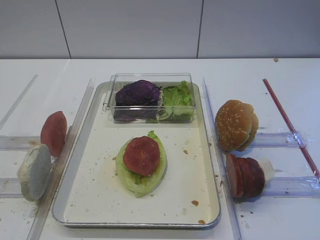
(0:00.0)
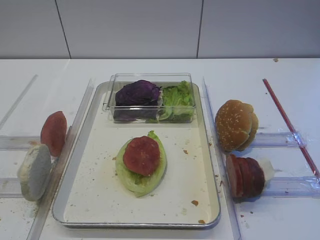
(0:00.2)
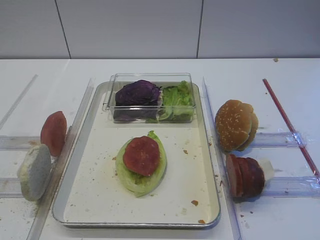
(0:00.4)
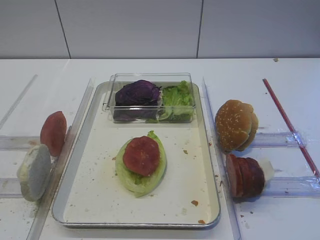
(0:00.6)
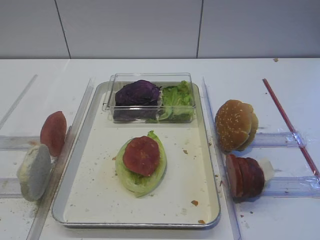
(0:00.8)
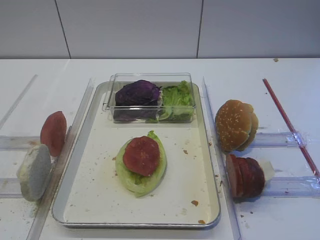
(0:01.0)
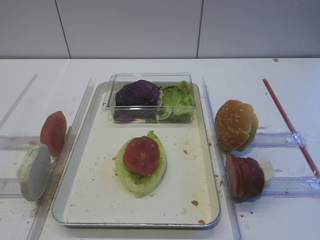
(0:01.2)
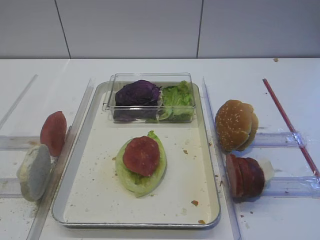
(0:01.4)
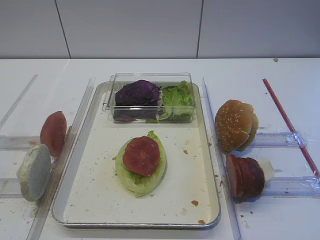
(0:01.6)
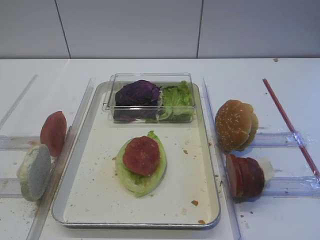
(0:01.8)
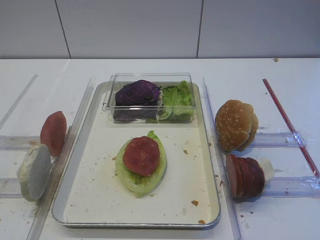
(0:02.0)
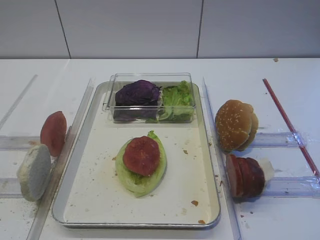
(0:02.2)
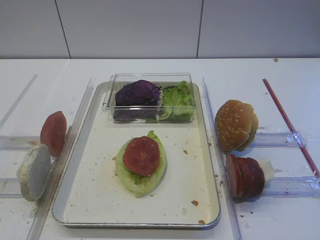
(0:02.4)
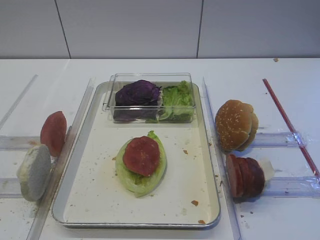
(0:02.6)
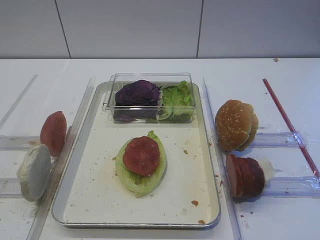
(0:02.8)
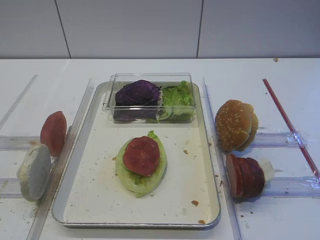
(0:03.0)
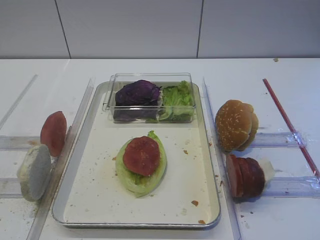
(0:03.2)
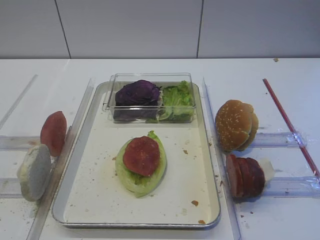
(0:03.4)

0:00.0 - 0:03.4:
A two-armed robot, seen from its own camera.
0:00.0 - 0:03.4: Neither gripper changes place.

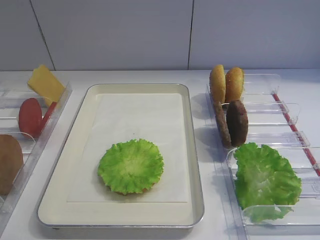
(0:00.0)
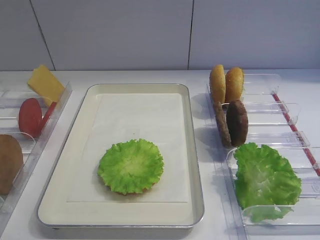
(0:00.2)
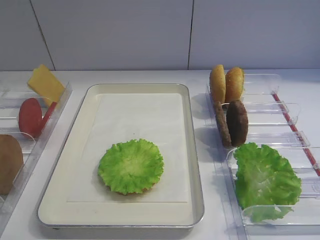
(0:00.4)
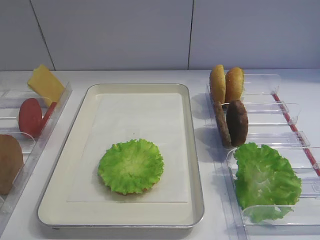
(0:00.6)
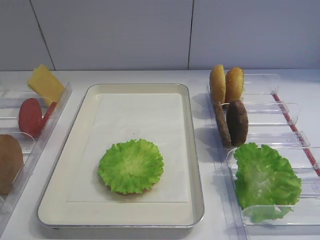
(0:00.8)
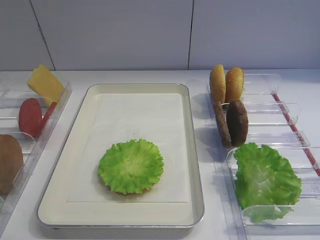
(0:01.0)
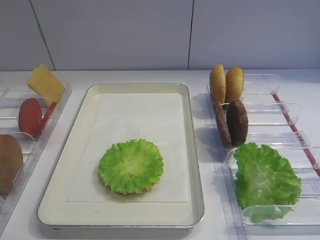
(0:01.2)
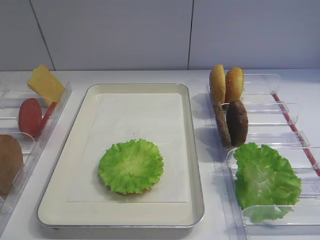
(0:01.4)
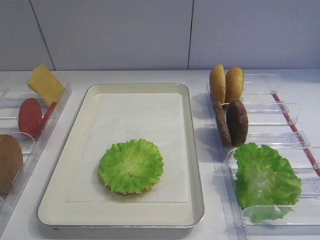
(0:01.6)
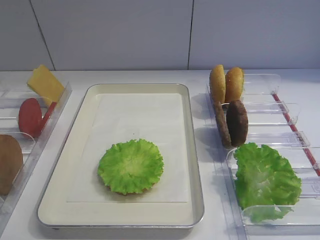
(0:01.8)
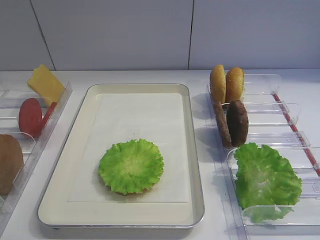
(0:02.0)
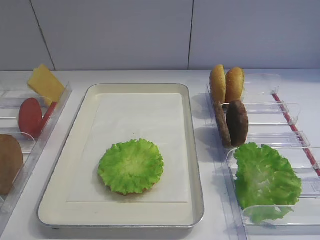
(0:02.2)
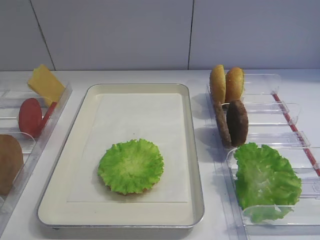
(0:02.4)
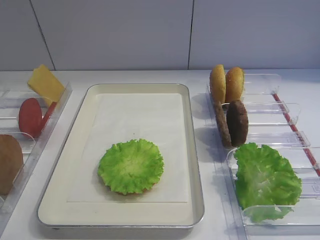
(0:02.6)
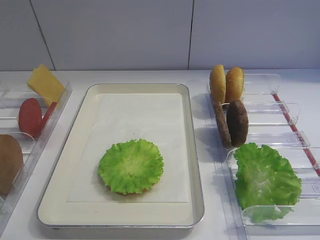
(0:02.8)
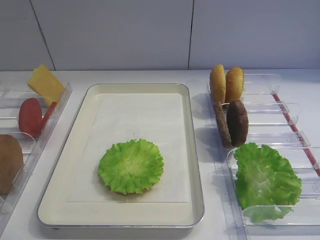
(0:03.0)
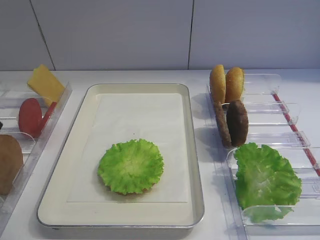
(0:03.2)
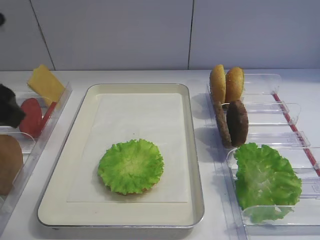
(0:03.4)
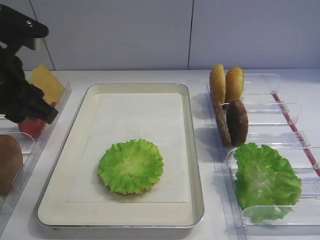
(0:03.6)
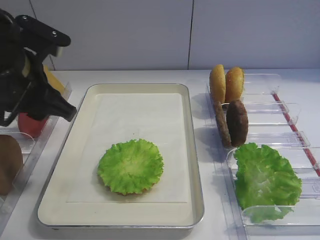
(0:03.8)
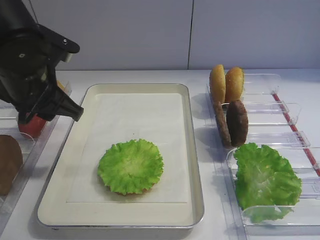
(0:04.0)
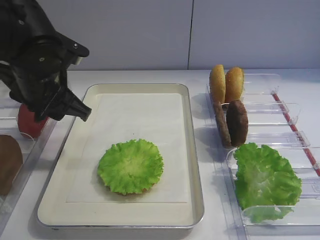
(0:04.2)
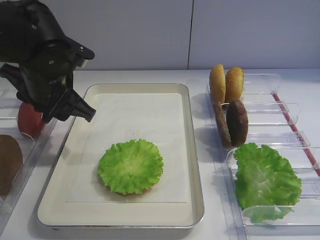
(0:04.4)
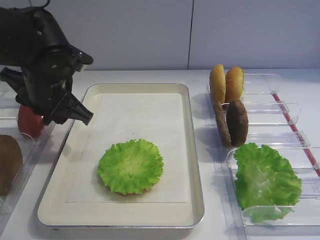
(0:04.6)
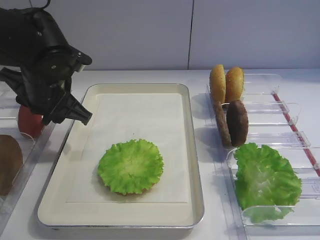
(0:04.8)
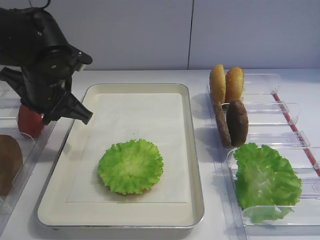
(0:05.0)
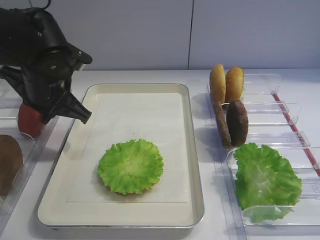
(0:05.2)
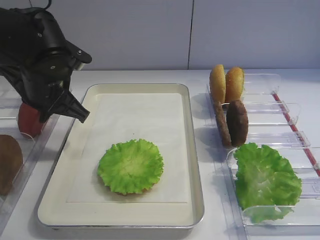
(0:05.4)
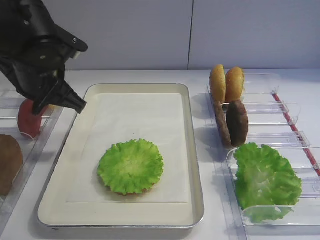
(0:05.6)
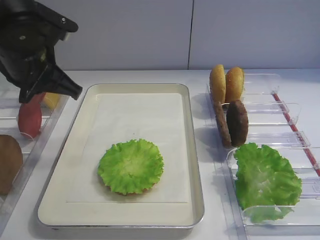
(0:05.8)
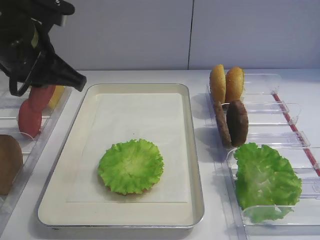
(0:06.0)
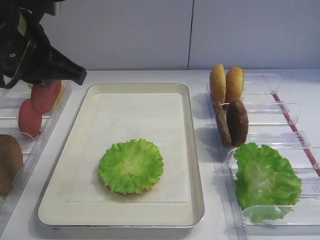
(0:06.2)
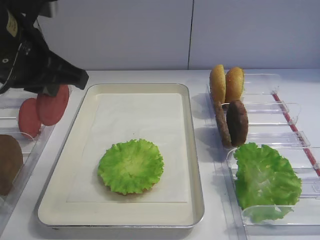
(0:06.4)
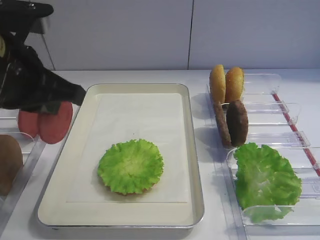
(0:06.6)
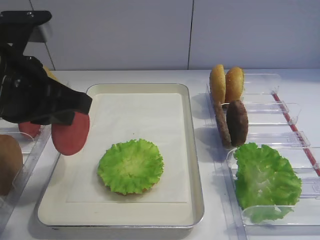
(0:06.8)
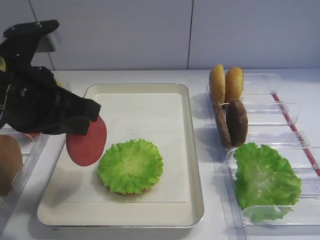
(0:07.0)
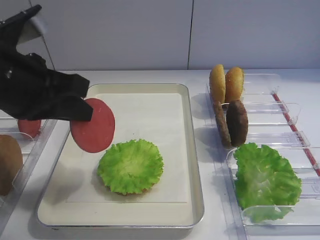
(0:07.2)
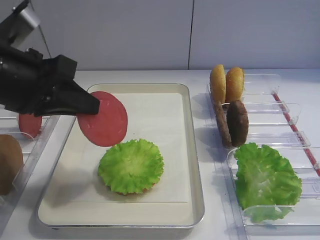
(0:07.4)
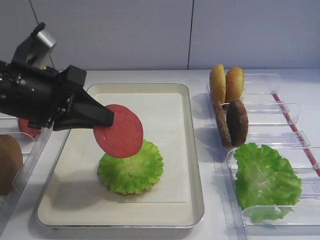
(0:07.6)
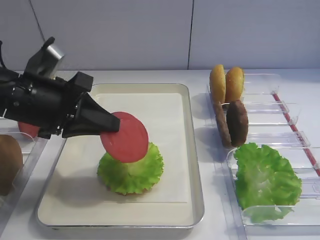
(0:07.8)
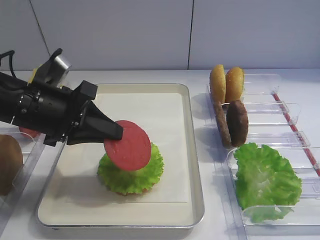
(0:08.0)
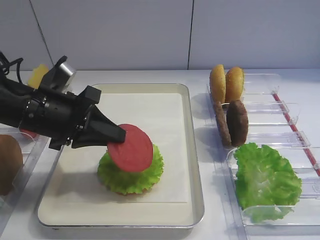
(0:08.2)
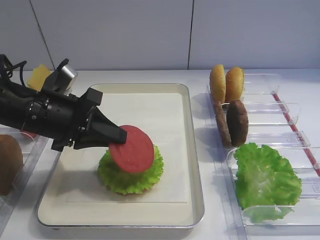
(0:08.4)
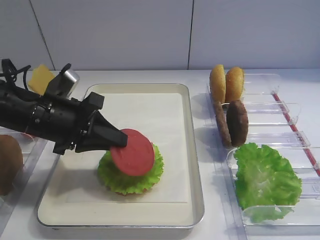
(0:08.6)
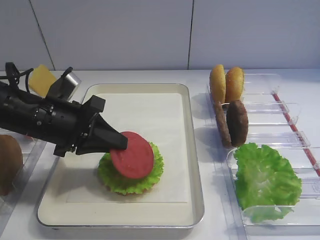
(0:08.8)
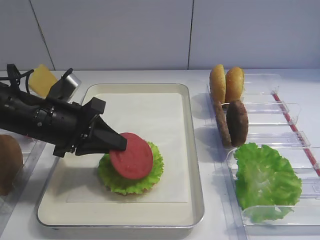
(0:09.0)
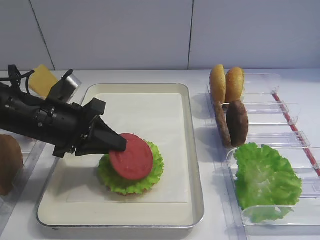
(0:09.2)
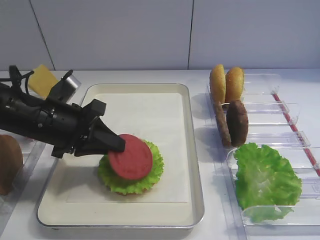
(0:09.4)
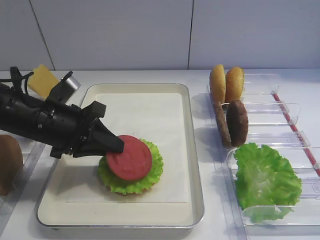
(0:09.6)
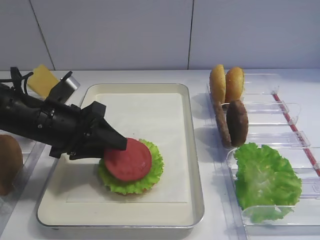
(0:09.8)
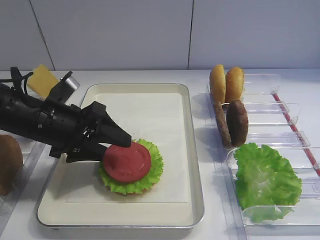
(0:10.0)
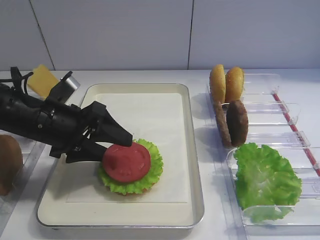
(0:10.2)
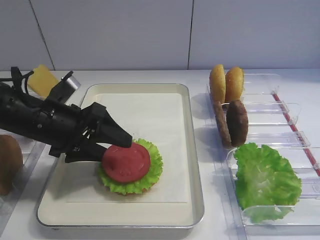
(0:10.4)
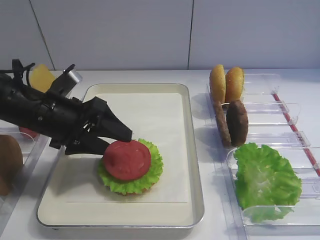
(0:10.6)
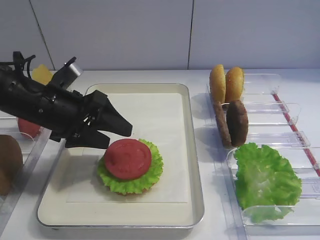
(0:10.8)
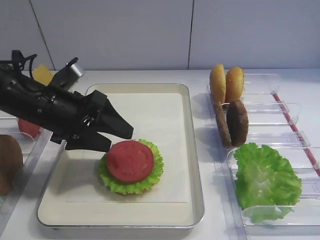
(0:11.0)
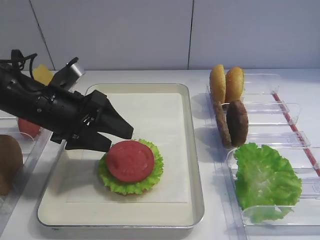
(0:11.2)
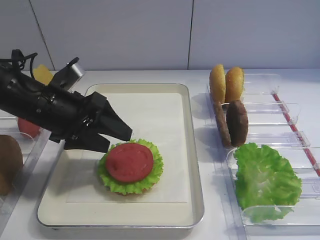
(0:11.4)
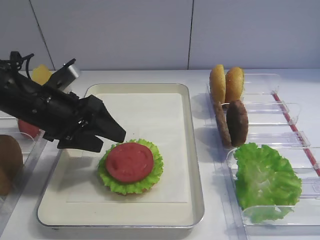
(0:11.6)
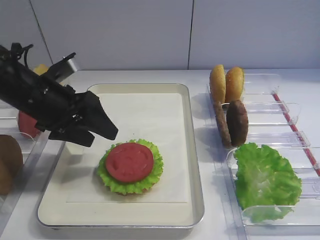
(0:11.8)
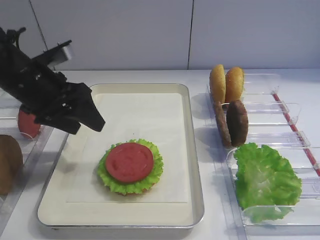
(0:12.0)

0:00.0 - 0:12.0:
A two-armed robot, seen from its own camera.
Step, 0:00.0 - 0:05.6: Pick up the tomato slice with the left gripper.
Step, 0:05.8 - 0:11.2: Place the tomato slice on the lettuce leaf with the left gripper.
0:03.0 - 0:04.4: The left gripper goes about 25 cm forward, to the right and downward.
0:04.4 - 0:06.0: The left gripper moves upward, roughly 5 cm, and closes its fingers.
0:06.0 - 0:07.6: The left gripper is displaced backward by approximately 5 cm.
0:07.6 - 0:09.0: The left gripper is displaced downward by some 10 cm.
0:09.0 - 0:10.4: The left gripper opens.
0:10.4 - 0:12.0: The left gripper moves upward, approximately 5 cm.

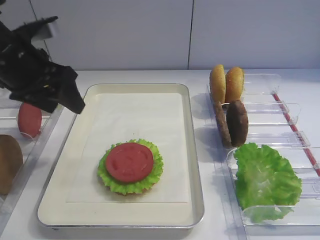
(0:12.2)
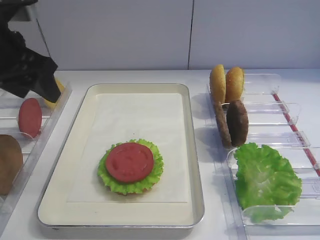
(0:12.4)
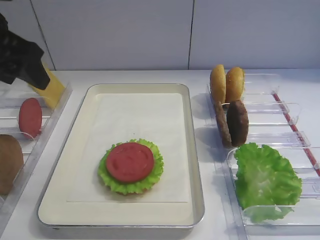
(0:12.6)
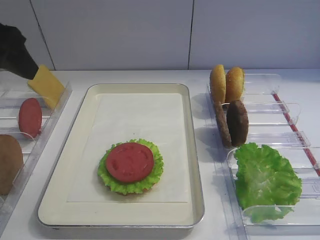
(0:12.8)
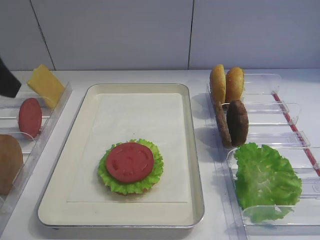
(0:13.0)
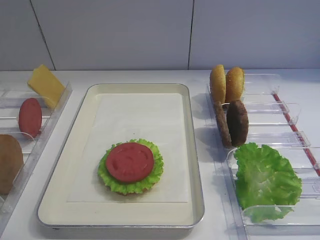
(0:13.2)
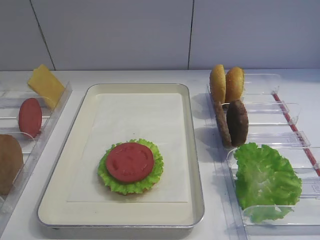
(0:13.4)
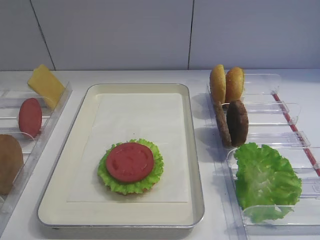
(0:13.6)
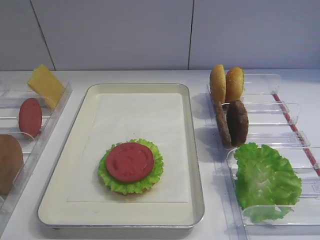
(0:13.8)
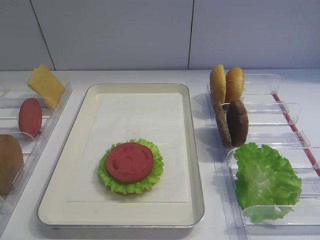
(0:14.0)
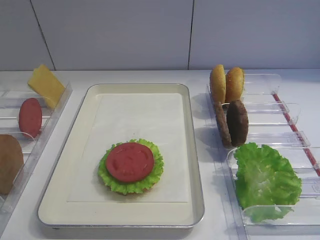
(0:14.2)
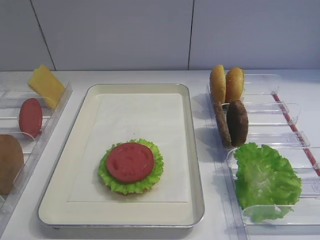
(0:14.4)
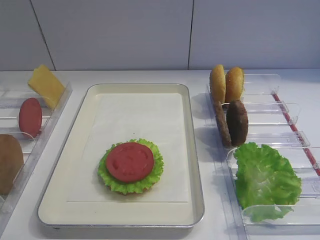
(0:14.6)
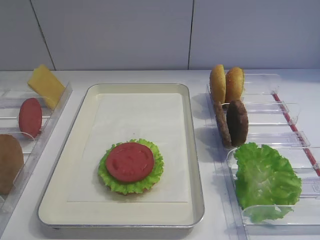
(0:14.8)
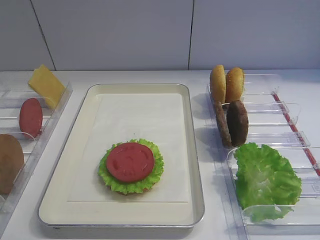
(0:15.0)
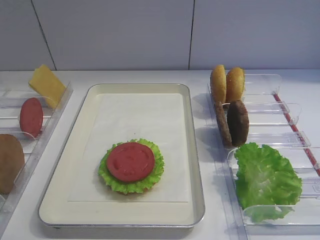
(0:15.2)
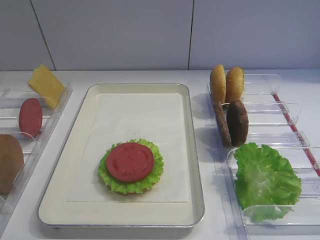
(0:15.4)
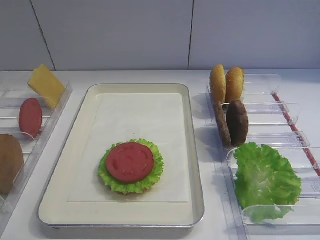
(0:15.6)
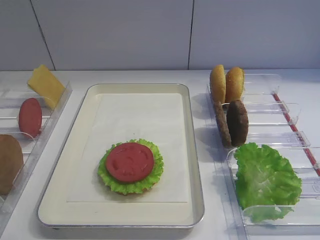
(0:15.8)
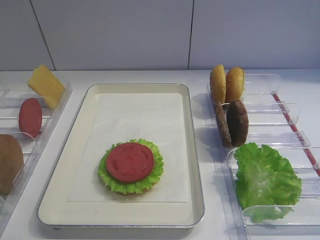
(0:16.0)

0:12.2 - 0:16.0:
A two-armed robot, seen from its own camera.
0:12.2 - 0:13.4: The left gripper travels backward by roughly 20 cm.

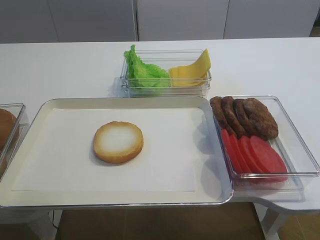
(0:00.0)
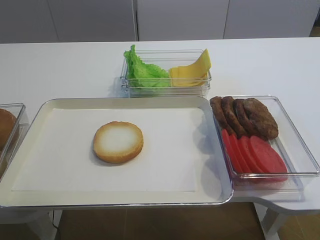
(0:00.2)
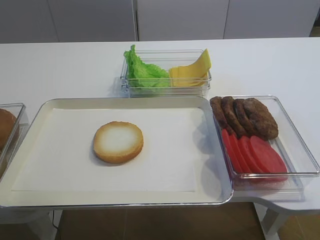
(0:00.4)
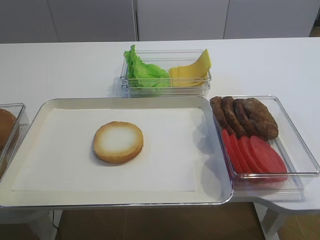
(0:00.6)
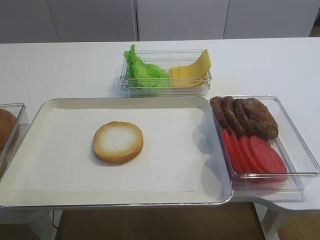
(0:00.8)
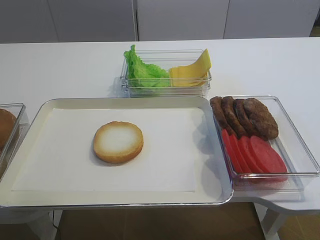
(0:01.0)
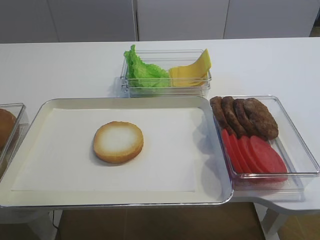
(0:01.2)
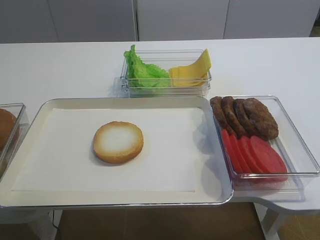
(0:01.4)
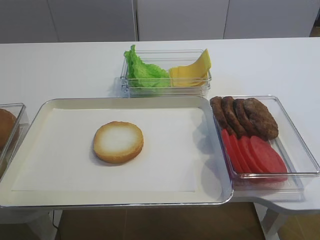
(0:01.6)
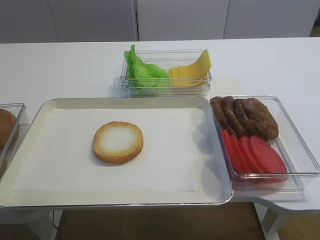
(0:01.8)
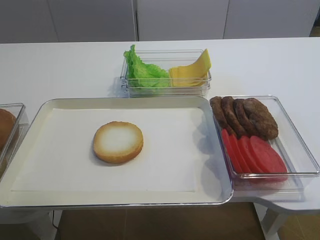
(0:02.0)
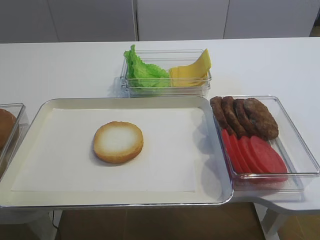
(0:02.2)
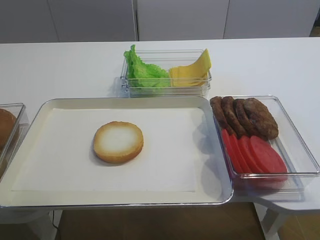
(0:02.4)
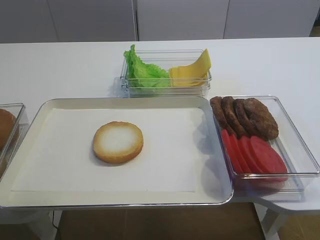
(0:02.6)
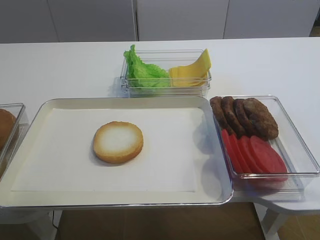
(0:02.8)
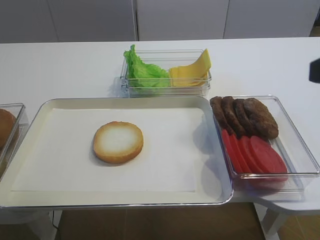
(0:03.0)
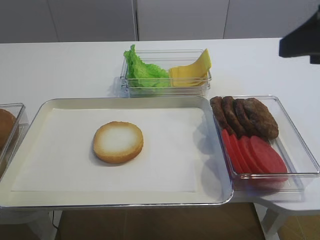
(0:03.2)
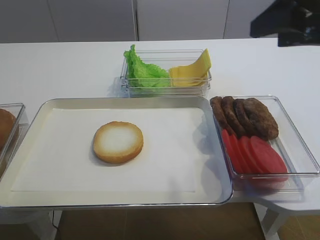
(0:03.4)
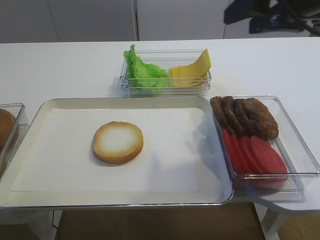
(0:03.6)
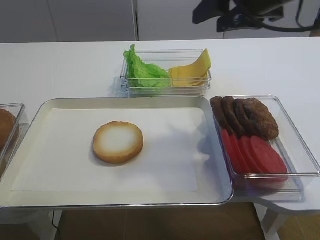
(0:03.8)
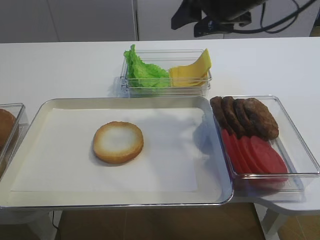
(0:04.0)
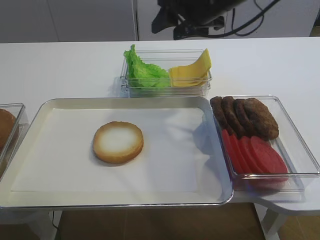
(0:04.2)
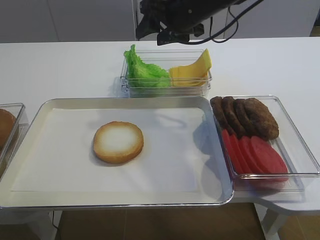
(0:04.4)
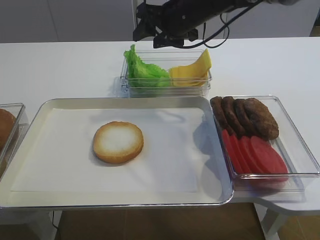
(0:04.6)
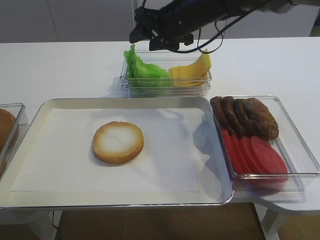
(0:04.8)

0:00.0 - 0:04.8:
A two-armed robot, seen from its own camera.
0:01.6 - 0:03.2: The right gripper shifts approximately 20 cm forward and upward.
0:03.2 - 0:04.8: The right gripper shifts approximately 30 cm forward and to the left.
